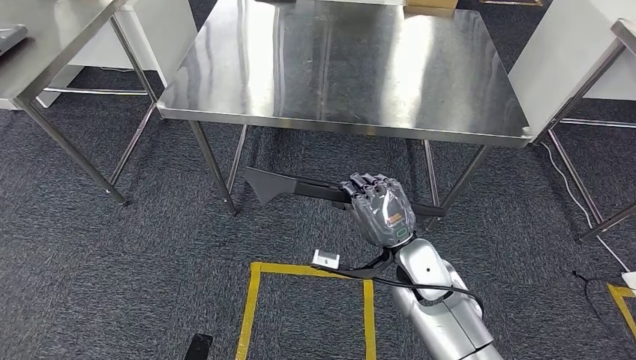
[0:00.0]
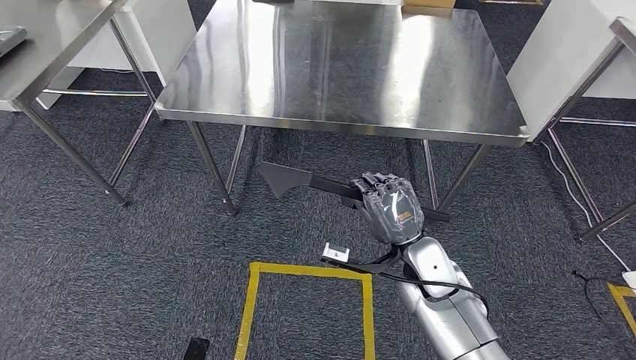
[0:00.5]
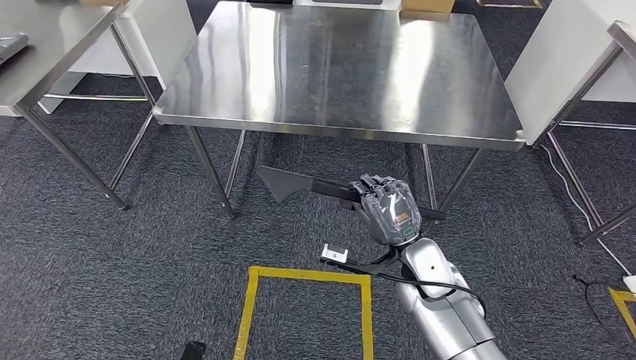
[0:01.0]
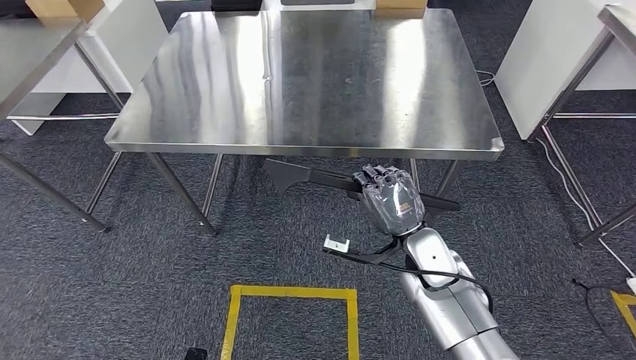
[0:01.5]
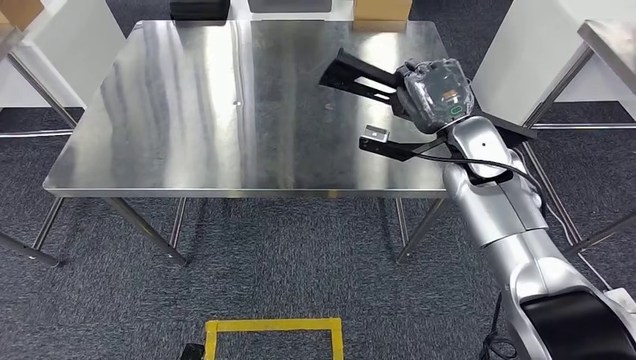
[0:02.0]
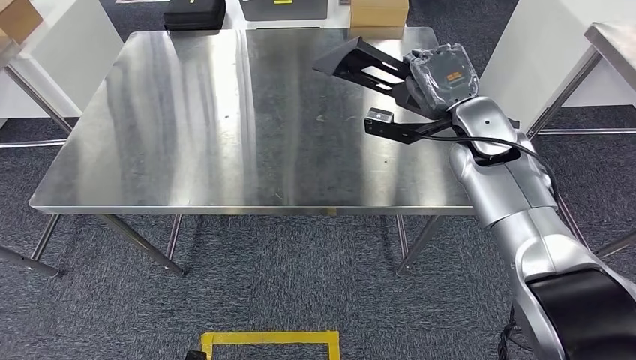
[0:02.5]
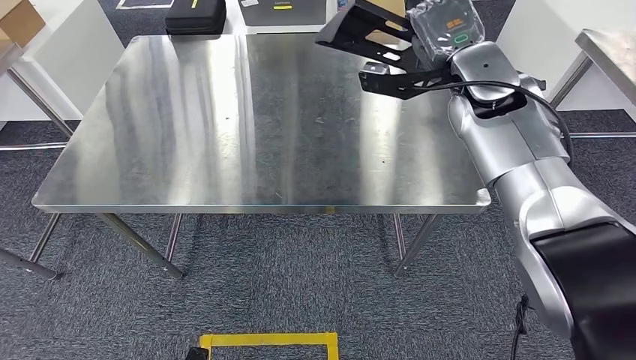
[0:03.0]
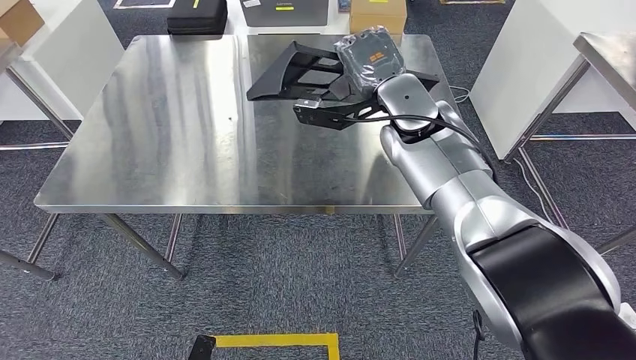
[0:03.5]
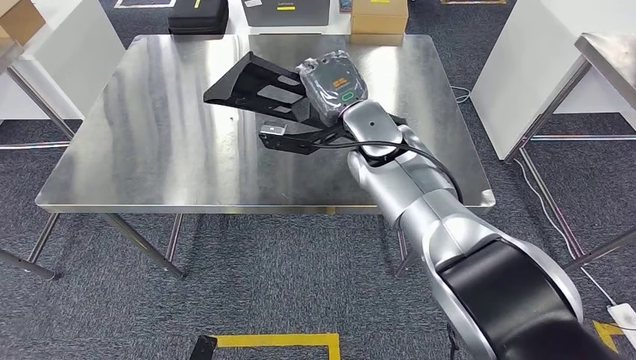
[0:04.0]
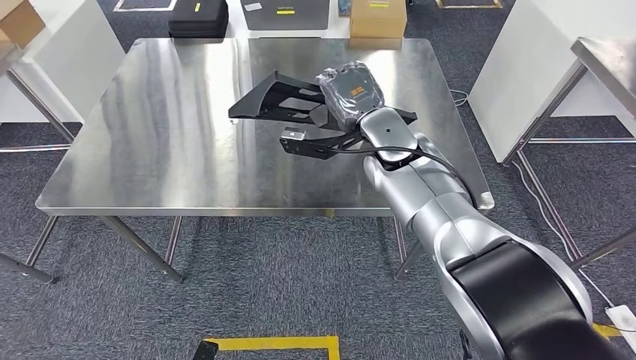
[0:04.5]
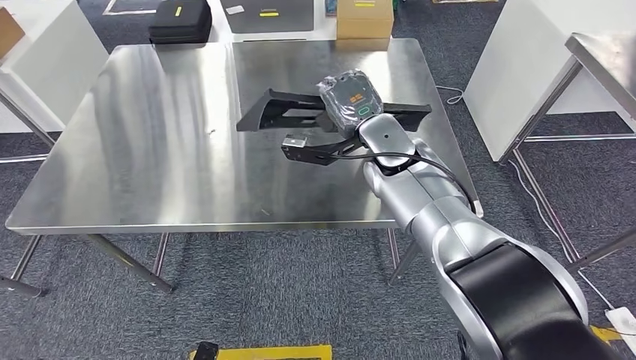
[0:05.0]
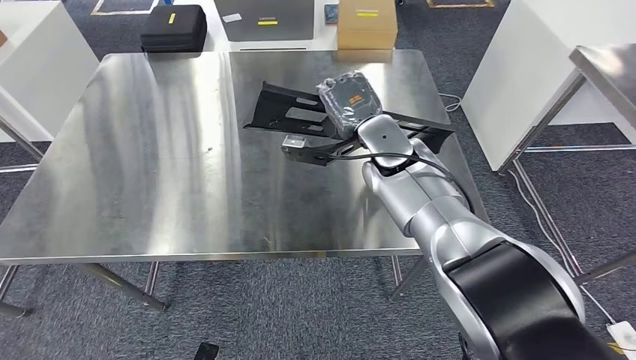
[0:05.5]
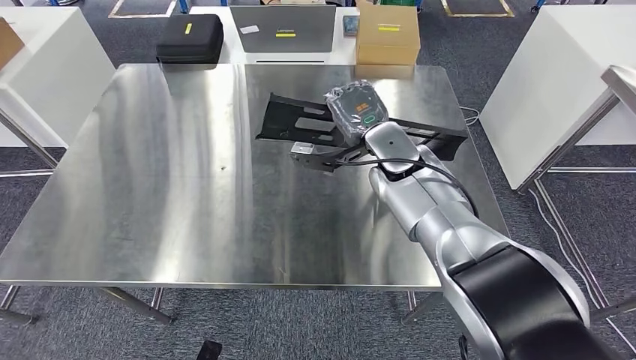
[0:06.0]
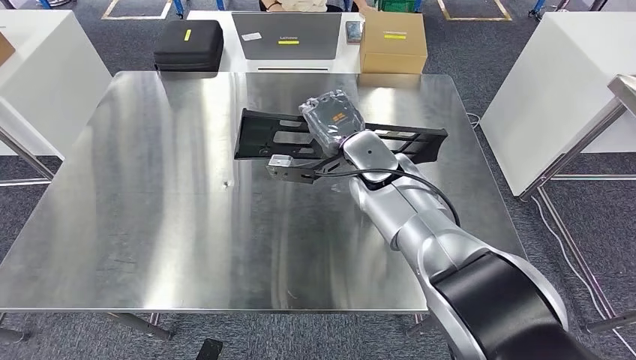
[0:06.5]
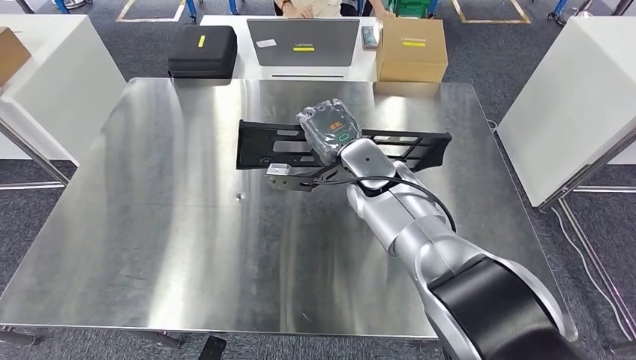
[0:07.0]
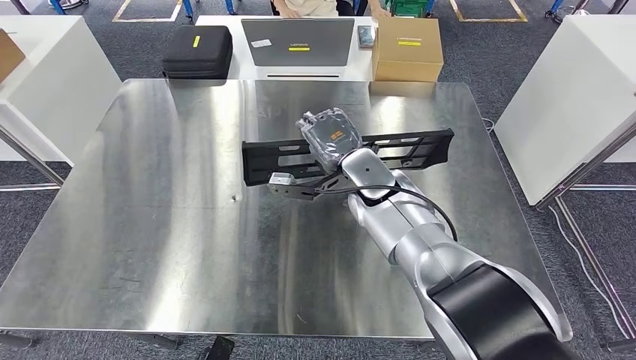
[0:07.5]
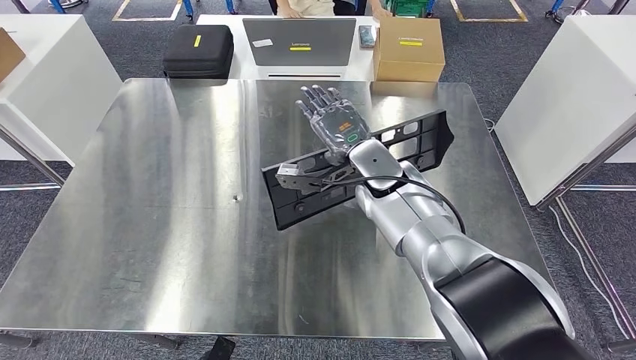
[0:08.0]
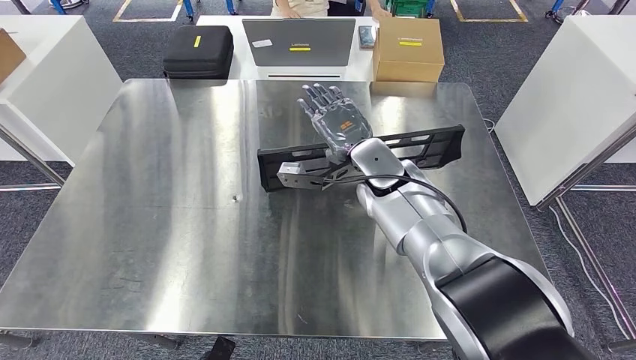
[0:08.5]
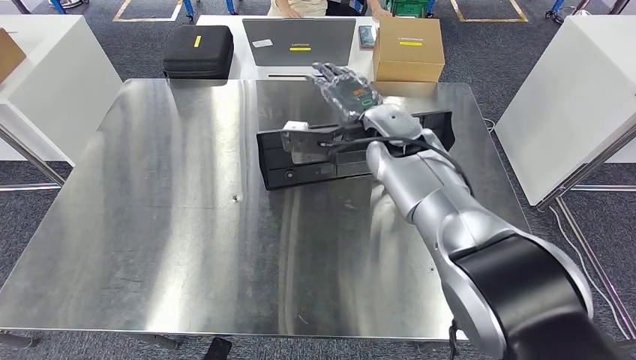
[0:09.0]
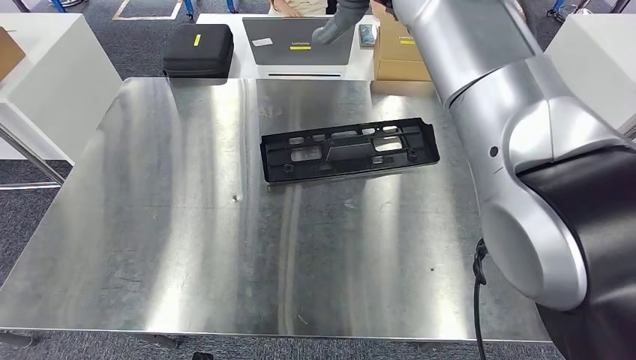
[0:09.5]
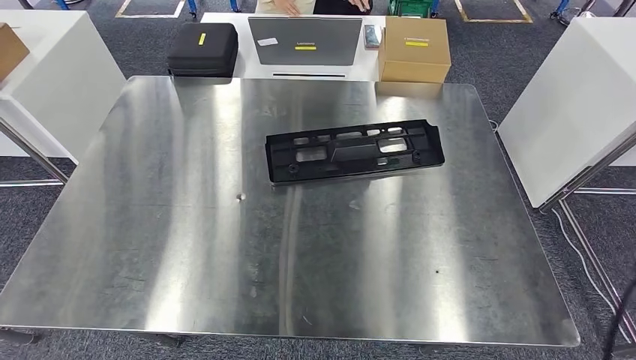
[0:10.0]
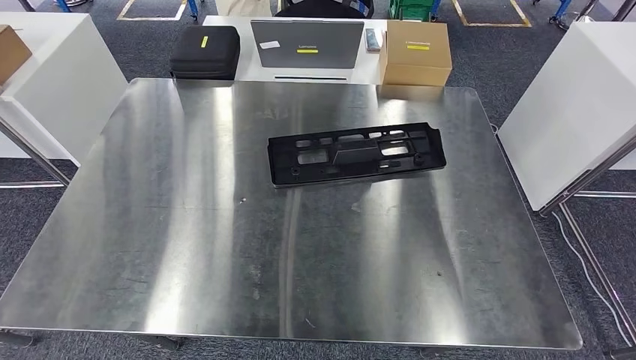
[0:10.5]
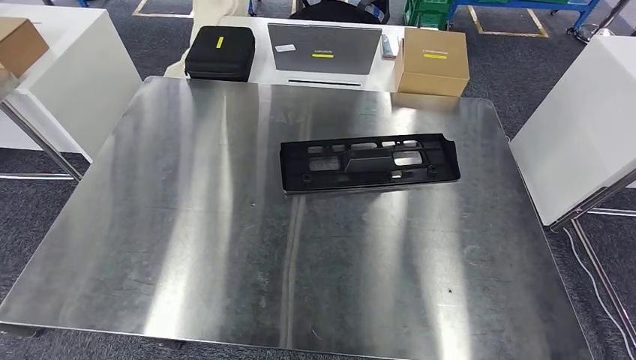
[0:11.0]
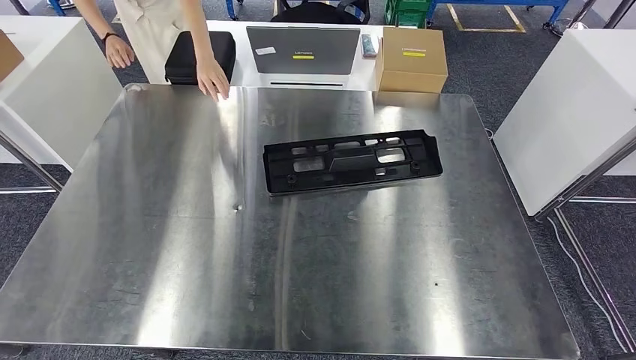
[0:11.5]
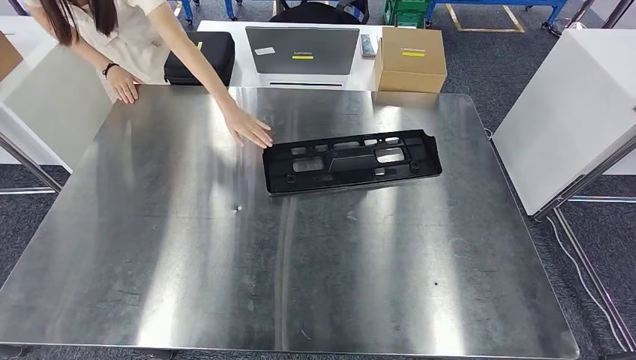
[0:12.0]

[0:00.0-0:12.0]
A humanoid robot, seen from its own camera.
Step, 0:00.0 to 0:03.0: Move the large material to the workbench.

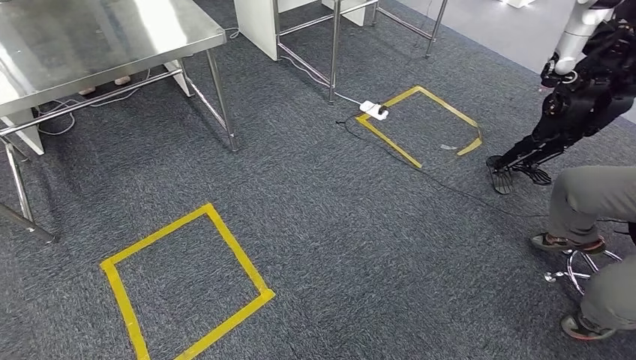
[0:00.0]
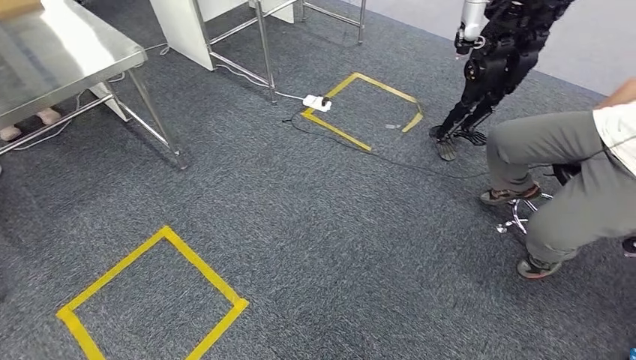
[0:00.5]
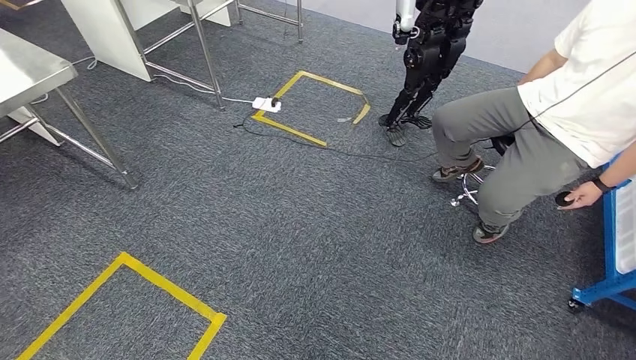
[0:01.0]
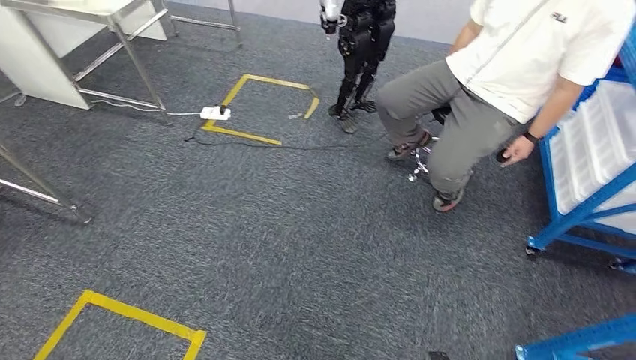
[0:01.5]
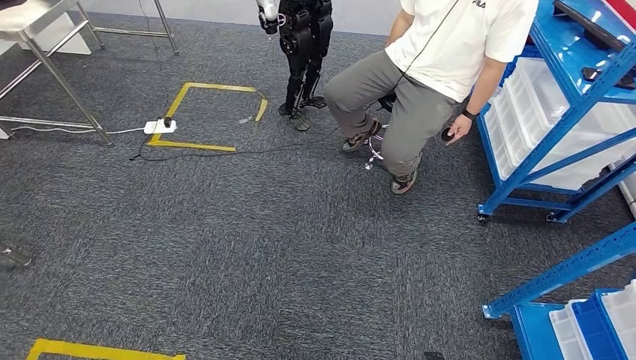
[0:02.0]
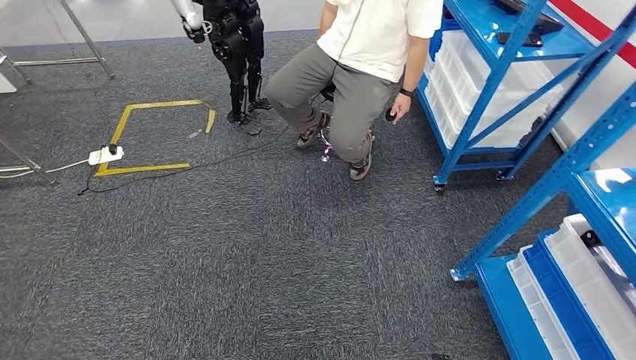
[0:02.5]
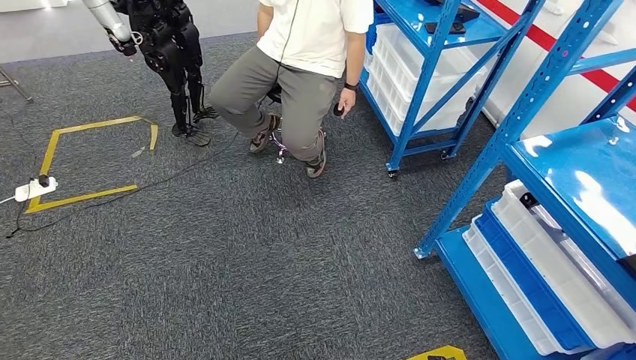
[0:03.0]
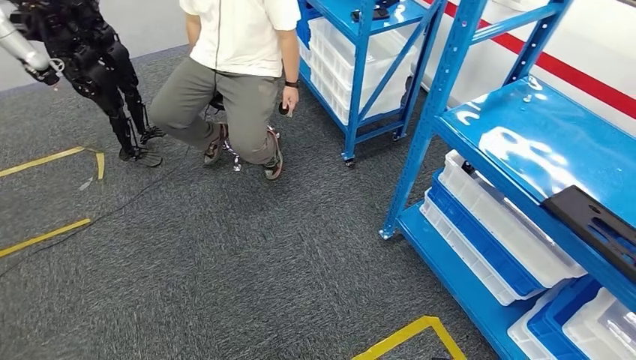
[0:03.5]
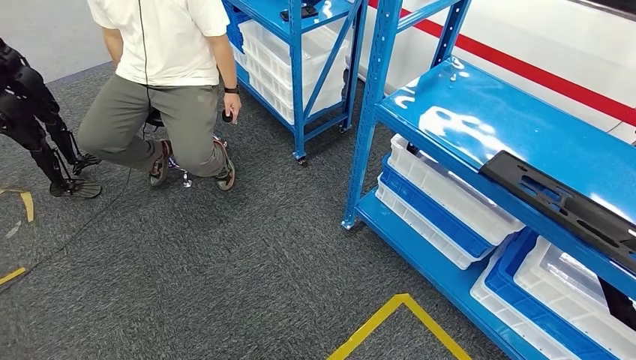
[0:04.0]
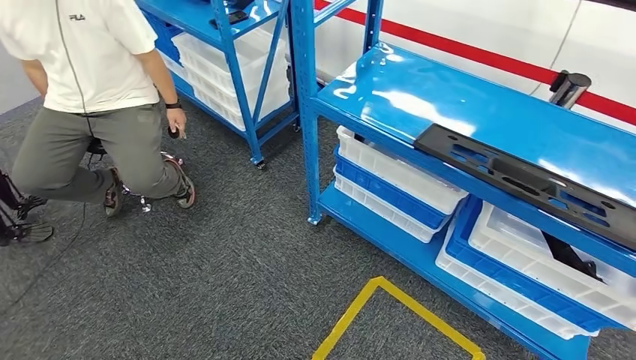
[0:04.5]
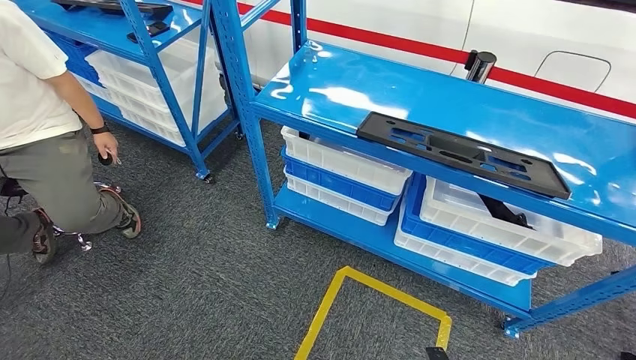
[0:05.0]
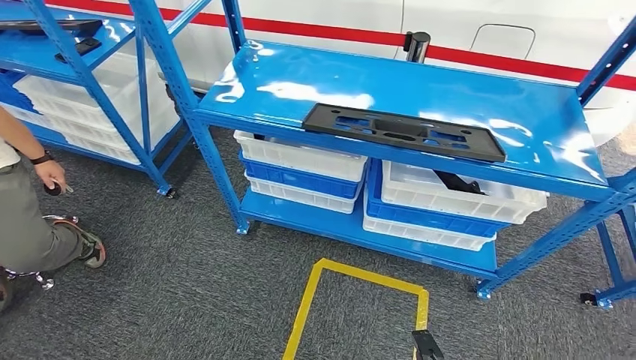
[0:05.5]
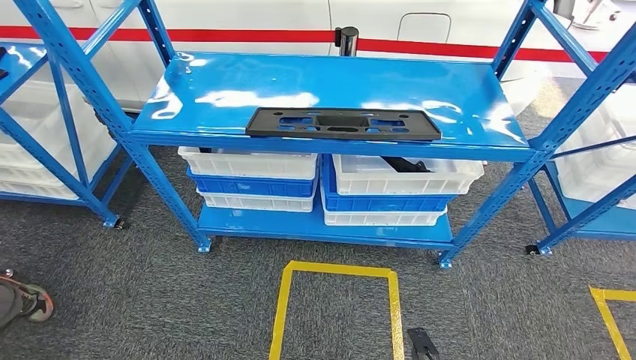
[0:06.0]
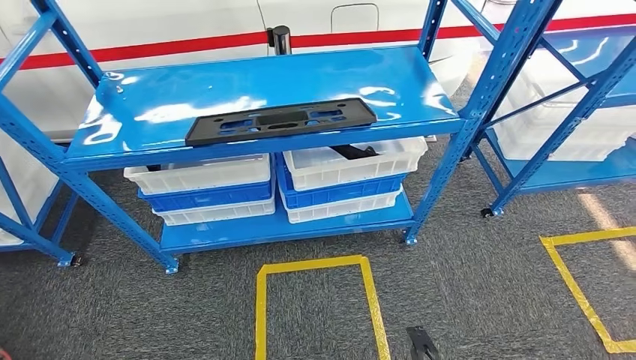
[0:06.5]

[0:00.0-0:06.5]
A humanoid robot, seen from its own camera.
Step, 0:00.0 to 0:06.5: Move to the initial position of the shelf.

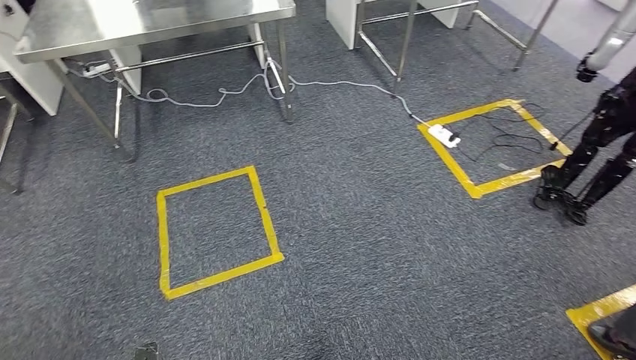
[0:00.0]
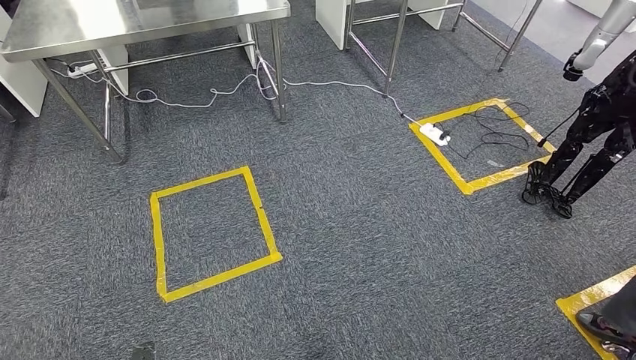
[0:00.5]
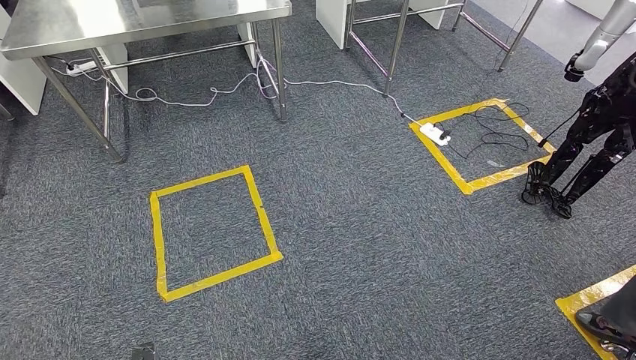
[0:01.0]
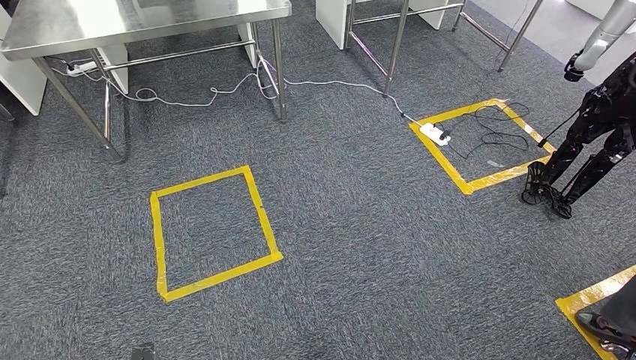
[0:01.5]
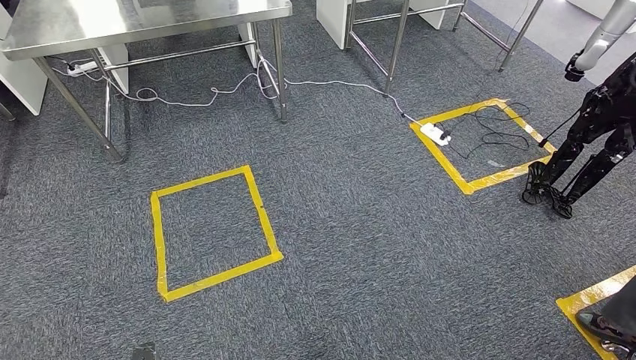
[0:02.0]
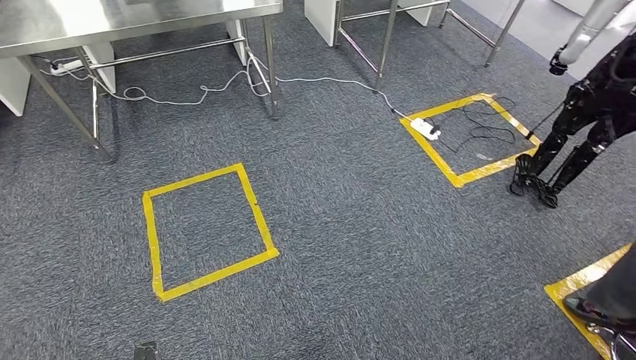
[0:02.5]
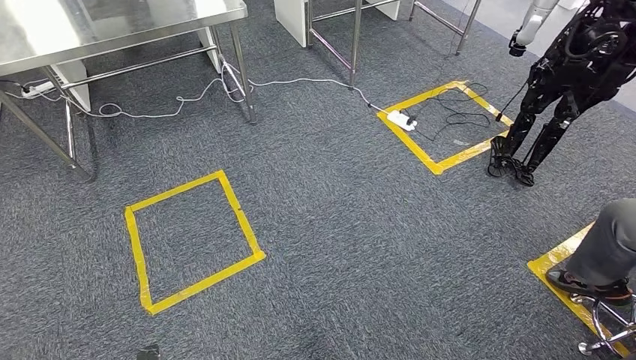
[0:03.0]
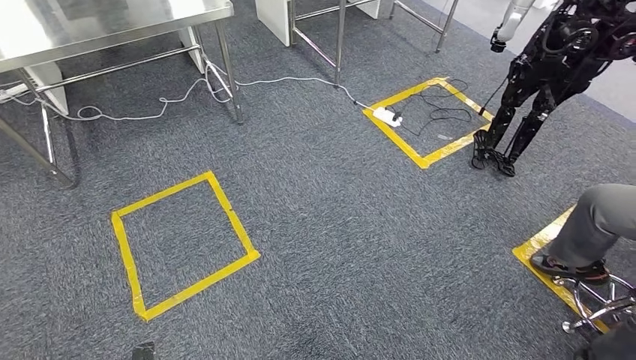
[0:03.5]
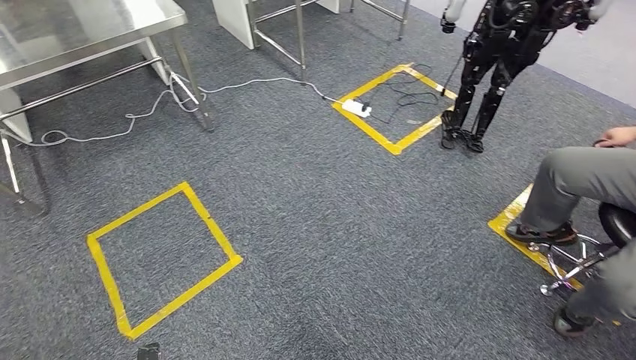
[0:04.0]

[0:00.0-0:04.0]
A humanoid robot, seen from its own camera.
0:00.0 to 0:02.0: Both hands stay put.
